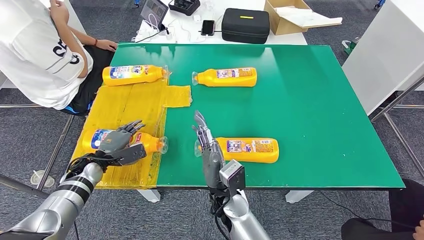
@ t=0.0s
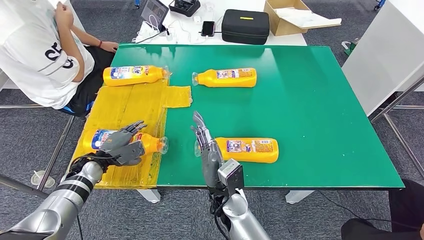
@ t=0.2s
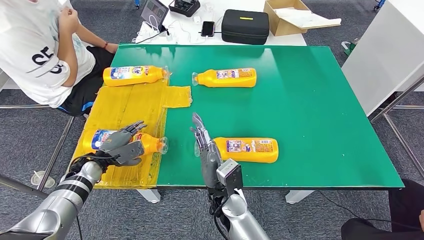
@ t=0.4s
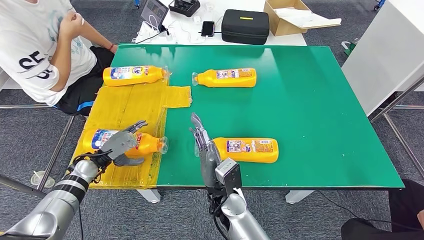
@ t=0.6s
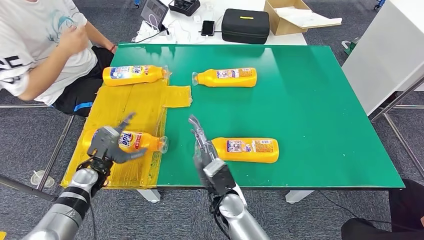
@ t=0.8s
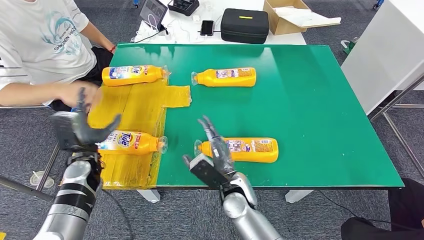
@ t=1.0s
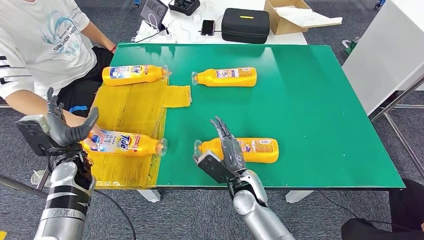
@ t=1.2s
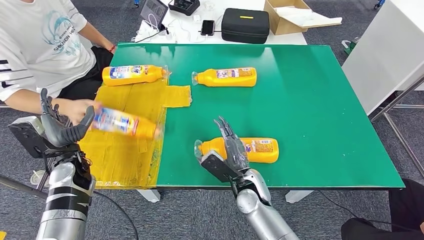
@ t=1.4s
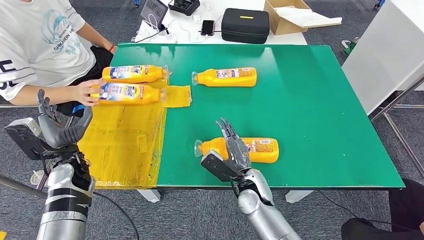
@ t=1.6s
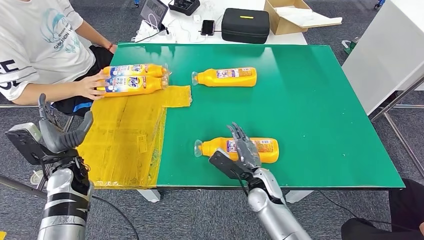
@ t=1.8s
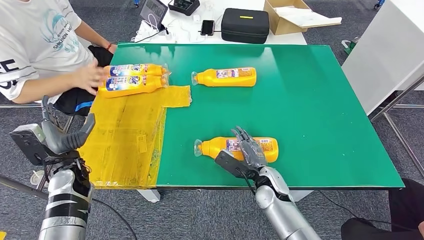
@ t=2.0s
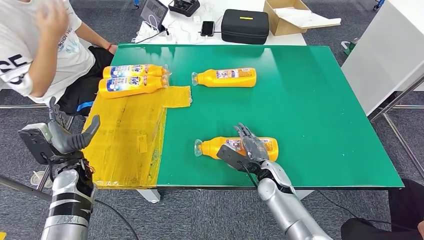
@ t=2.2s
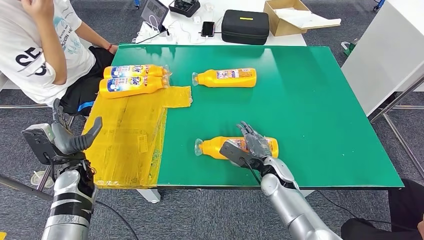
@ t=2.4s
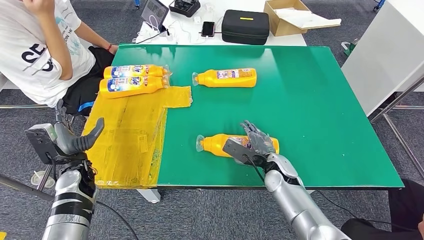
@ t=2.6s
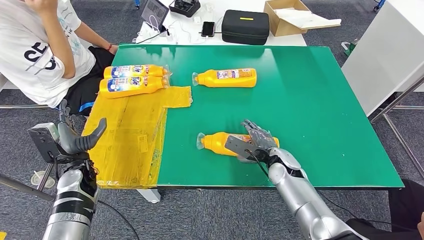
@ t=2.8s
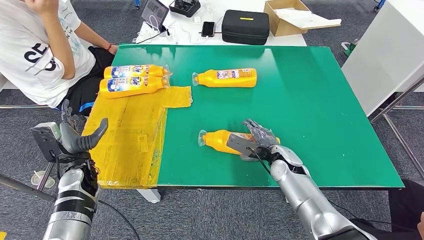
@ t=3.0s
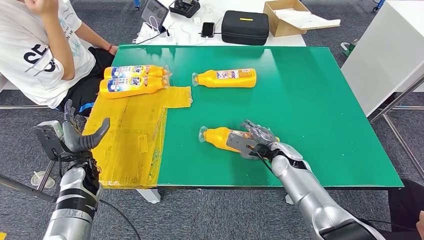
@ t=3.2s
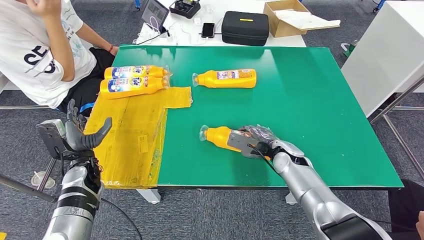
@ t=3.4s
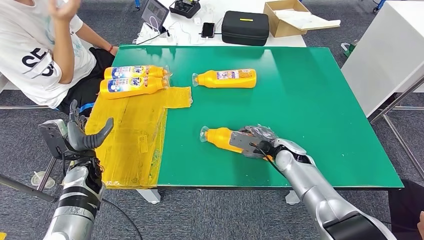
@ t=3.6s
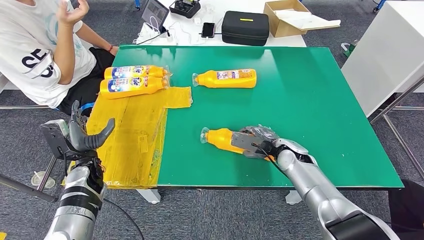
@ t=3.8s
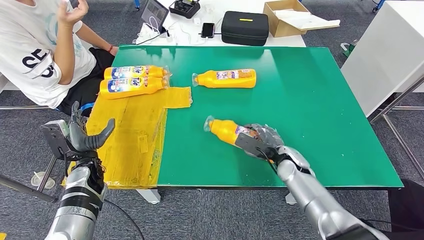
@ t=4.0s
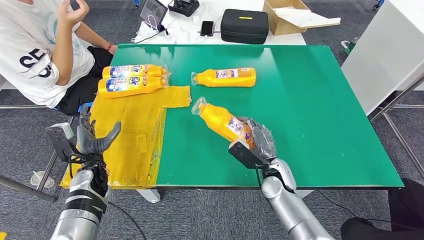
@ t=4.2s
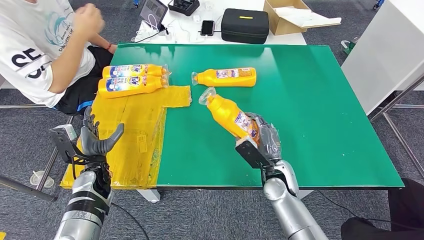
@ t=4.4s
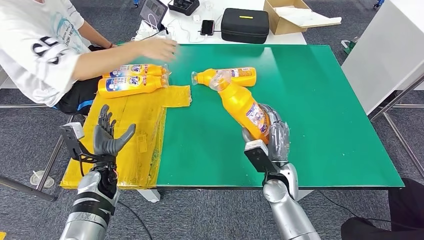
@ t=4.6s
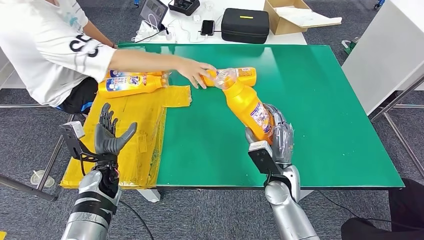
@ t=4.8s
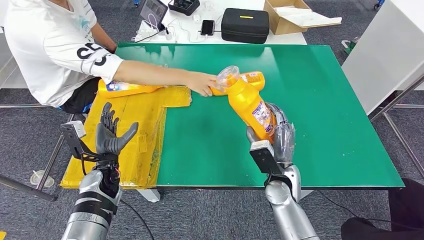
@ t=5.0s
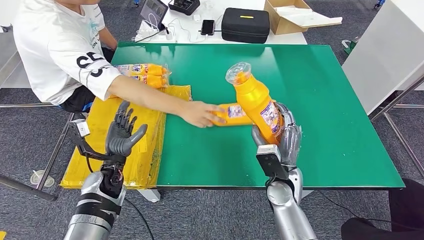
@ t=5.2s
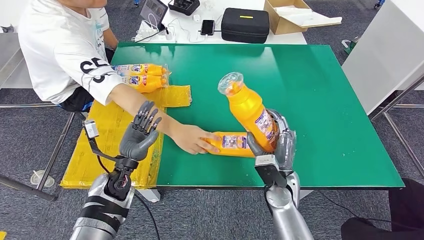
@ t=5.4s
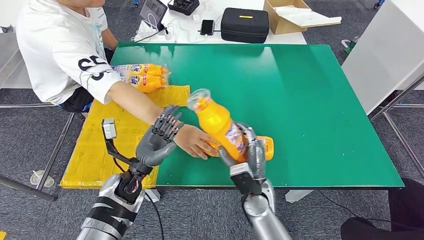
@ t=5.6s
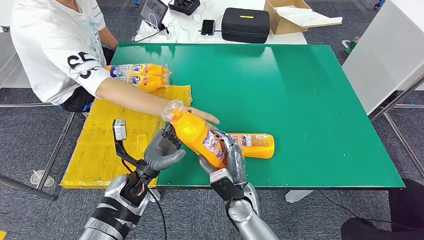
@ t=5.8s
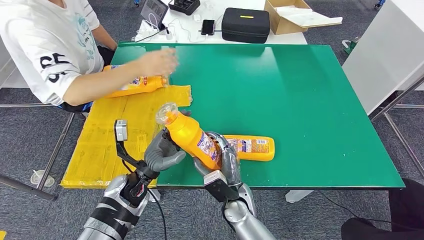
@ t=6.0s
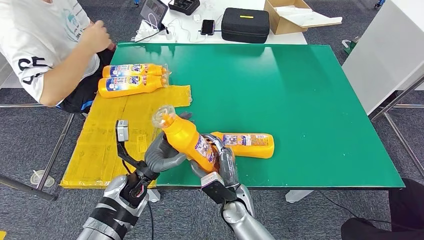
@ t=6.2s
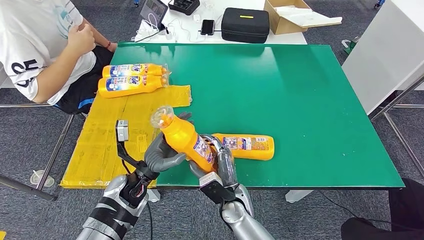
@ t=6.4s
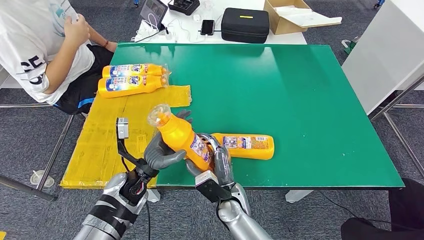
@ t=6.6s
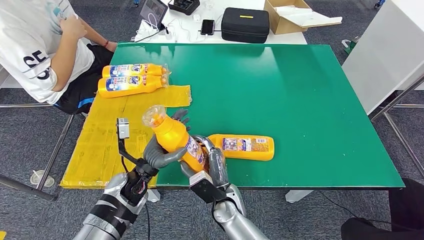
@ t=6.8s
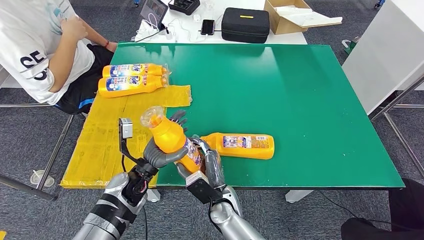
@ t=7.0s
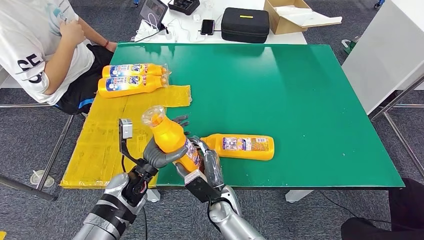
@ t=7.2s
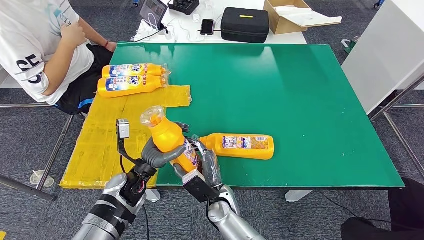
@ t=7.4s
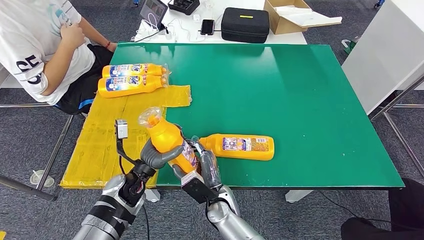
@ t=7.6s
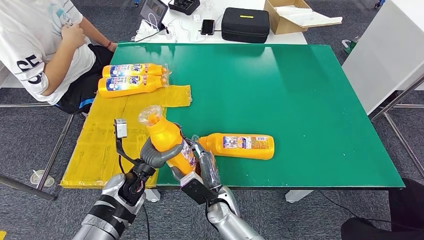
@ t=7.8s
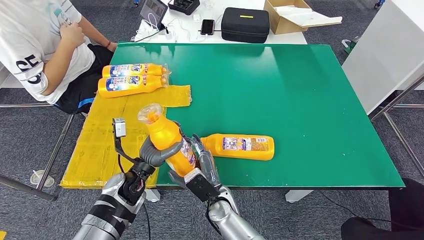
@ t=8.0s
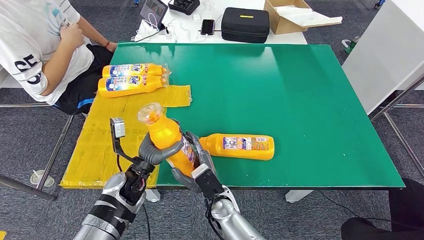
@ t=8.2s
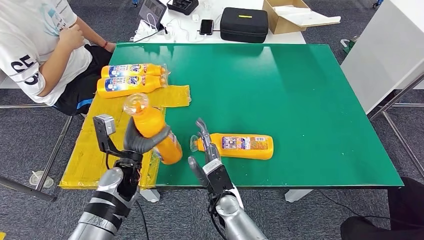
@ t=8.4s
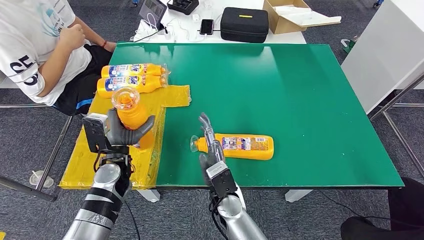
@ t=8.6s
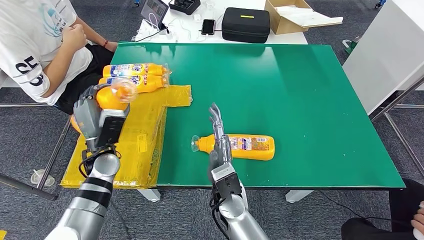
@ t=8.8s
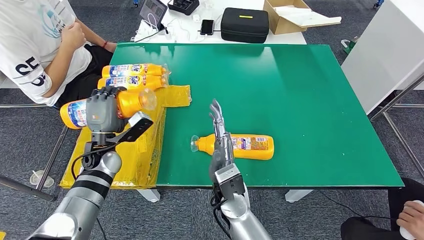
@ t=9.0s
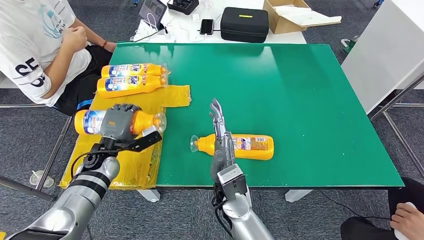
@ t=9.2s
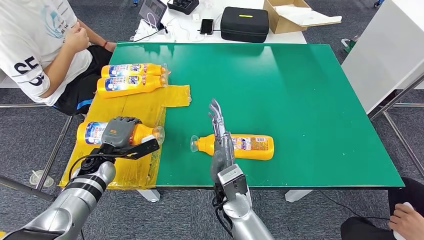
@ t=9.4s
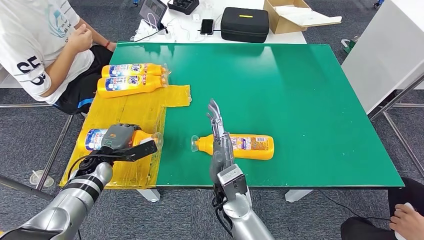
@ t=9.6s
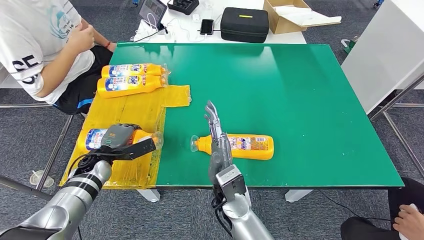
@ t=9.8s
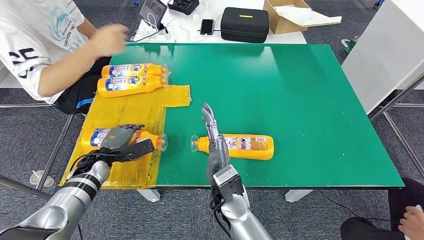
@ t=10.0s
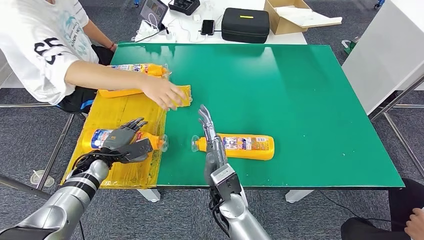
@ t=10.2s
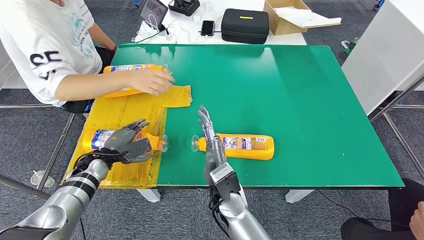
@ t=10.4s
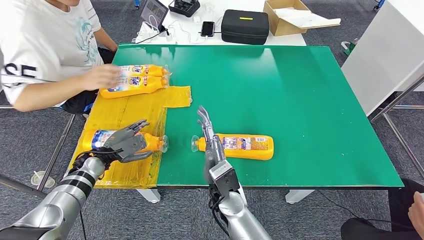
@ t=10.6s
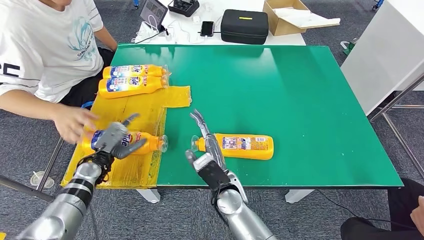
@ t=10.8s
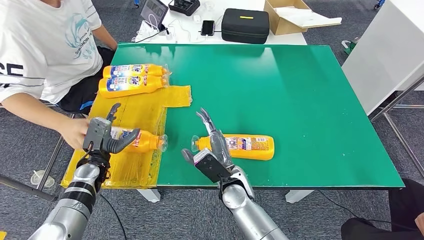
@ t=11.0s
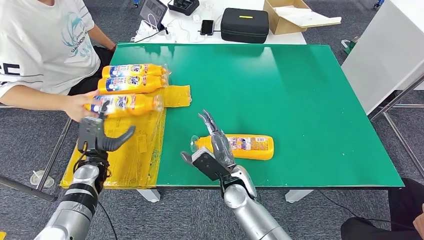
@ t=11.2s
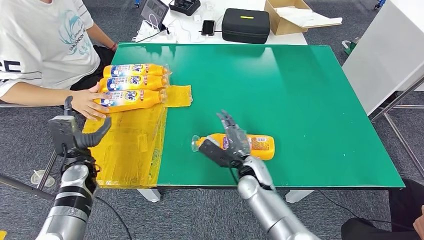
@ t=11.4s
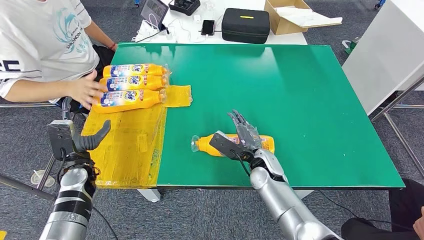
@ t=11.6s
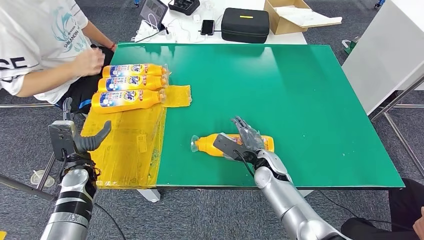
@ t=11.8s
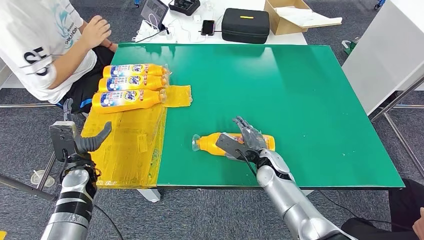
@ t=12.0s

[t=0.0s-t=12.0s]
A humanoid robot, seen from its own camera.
Step, t=1.0s to t=5.6s: Pick up the fast-moving consumer goods bottle from the table.
Step, t=5.8s to t=11.0s: Flip the fast-moving consumer goods bottle to the front side.
t=6.0s to t=7.6s: The hands make only small movements.

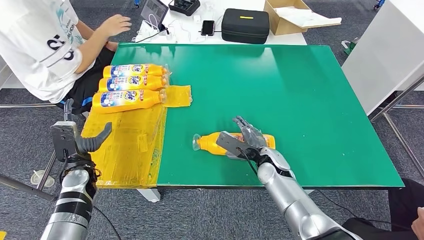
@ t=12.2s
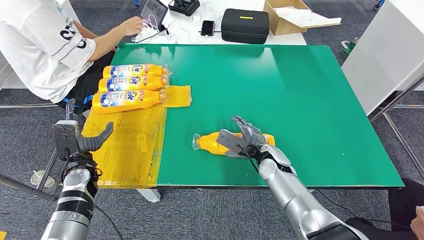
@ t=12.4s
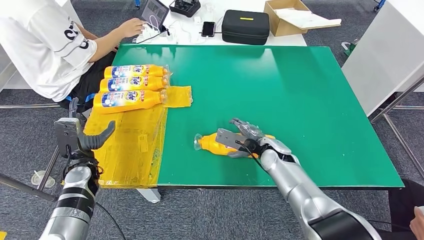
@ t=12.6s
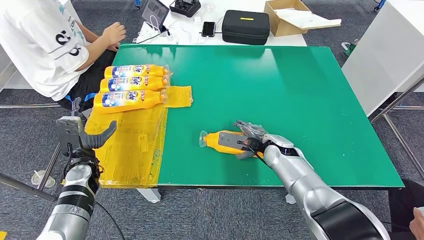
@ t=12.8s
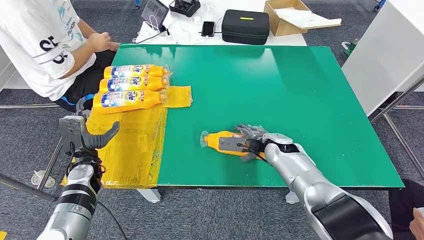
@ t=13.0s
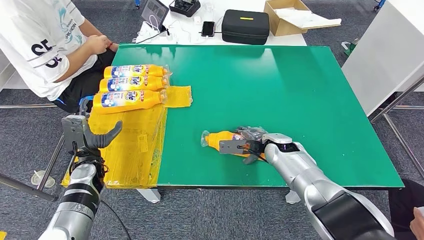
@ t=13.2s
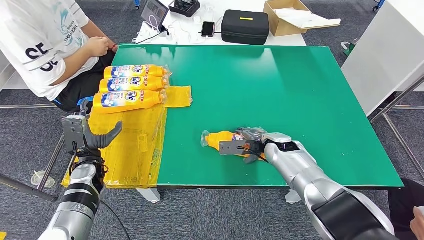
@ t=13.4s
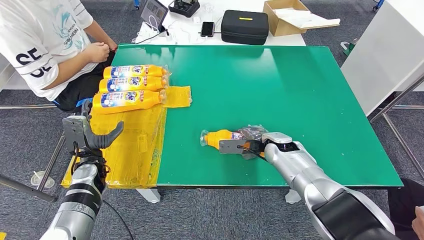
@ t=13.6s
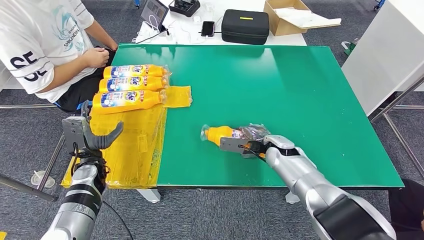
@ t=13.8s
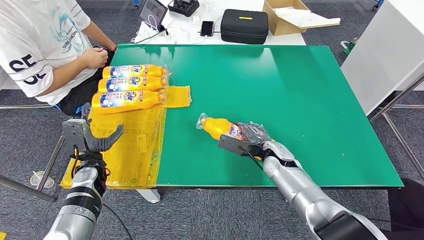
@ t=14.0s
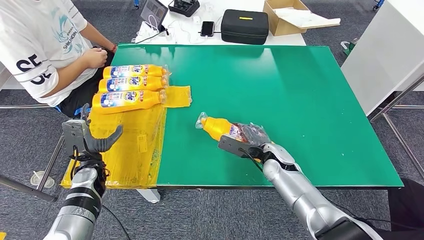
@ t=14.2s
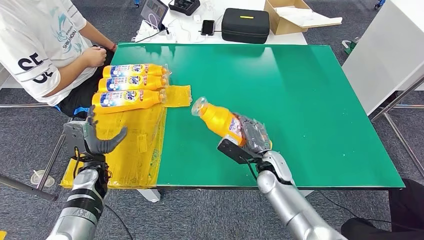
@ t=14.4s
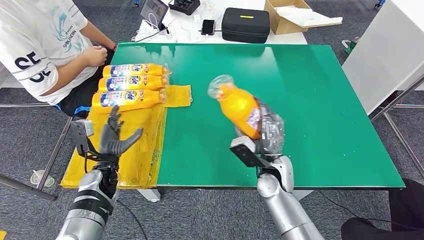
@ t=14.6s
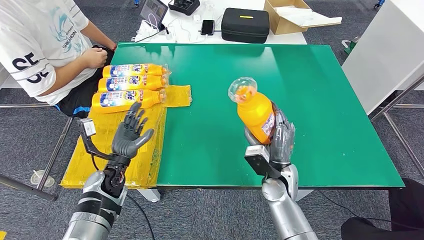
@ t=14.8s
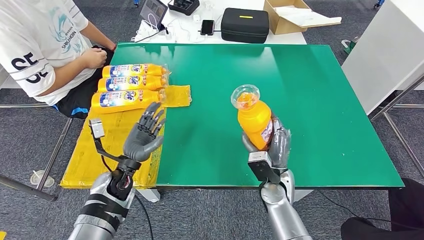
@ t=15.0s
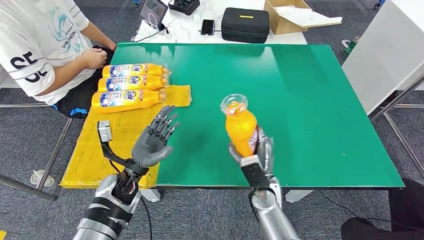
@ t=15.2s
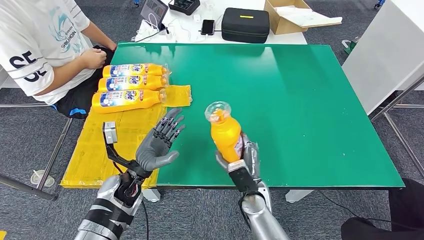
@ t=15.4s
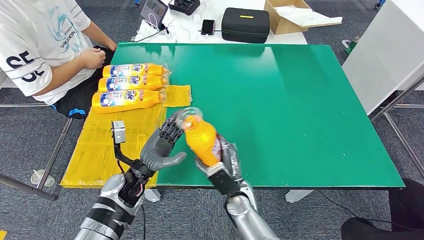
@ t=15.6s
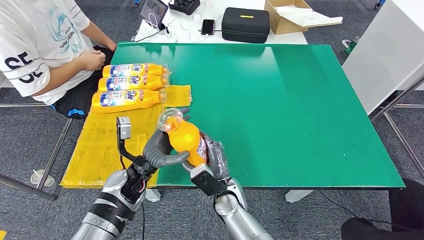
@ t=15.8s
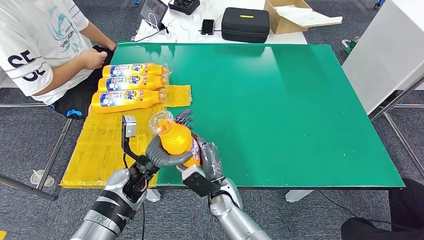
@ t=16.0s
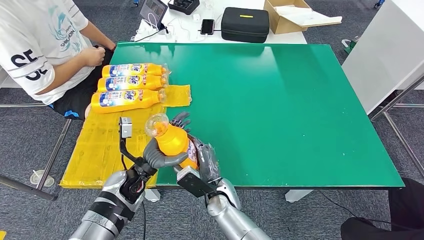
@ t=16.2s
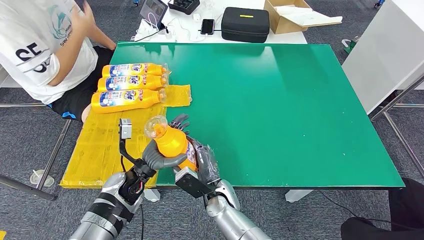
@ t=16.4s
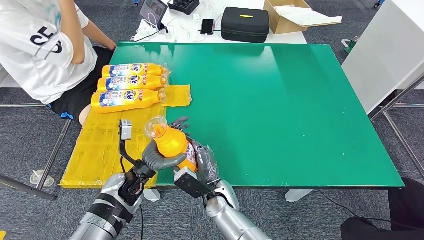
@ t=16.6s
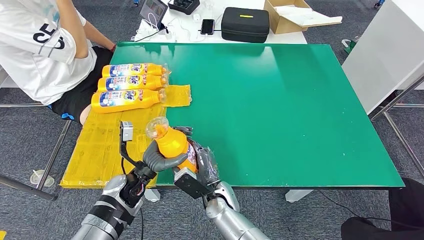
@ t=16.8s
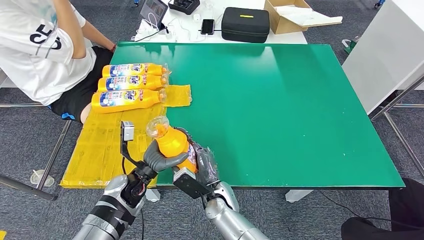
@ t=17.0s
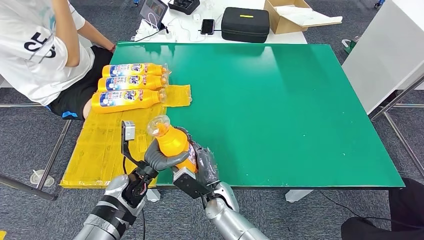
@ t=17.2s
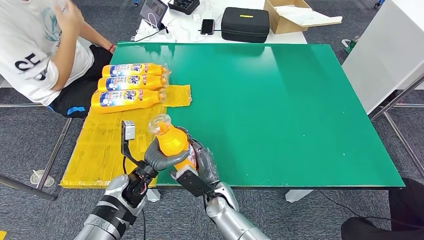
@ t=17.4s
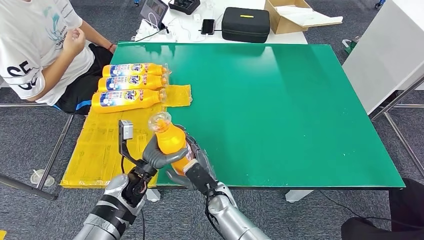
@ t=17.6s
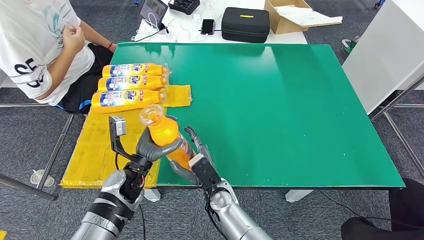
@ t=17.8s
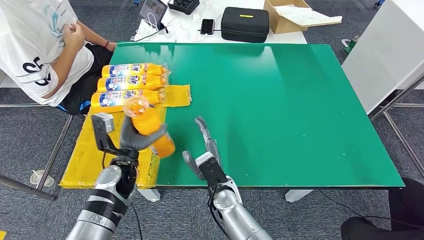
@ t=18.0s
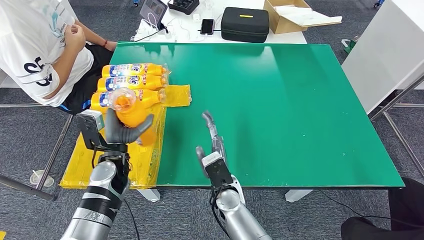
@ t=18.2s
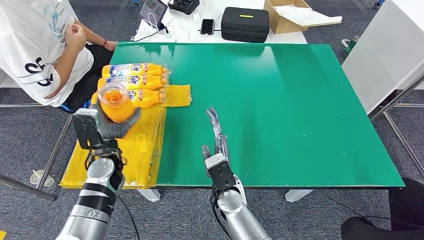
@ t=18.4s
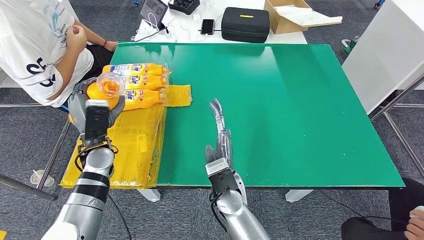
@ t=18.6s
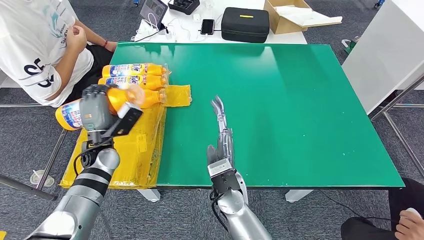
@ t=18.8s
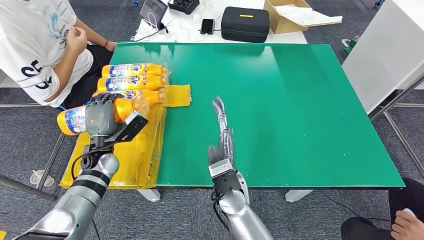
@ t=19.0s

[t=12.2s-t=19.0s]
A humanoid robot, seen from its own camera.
Step, t=12.2s to t=14.8s: Pick up the fast-moving consumer goods bottle from the table.
t=15.0s to t=16.2s: The right hand goes about 15 cm to the left.
t=16.2s to t=17.6s: The hands move only a little.
